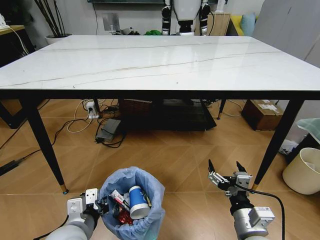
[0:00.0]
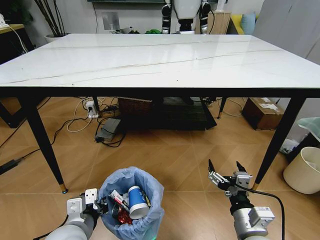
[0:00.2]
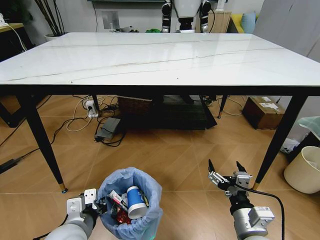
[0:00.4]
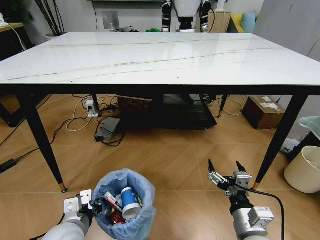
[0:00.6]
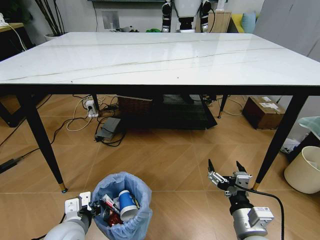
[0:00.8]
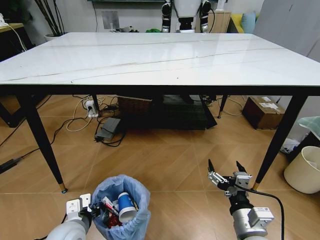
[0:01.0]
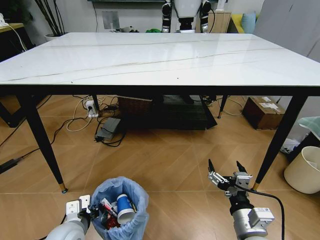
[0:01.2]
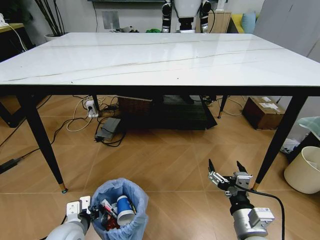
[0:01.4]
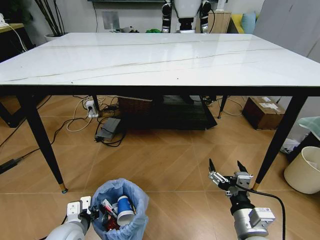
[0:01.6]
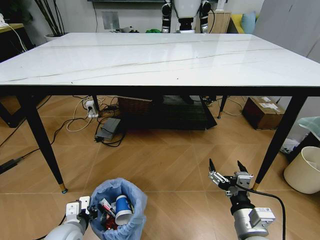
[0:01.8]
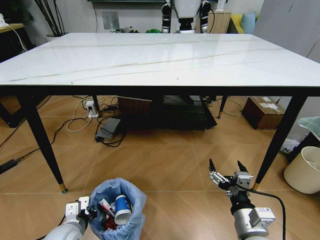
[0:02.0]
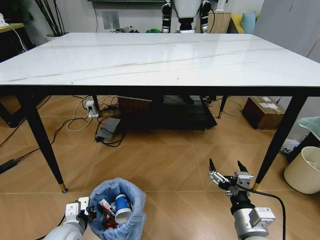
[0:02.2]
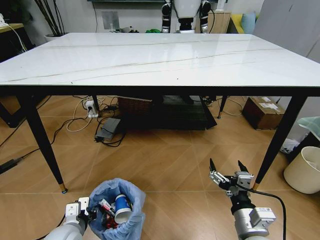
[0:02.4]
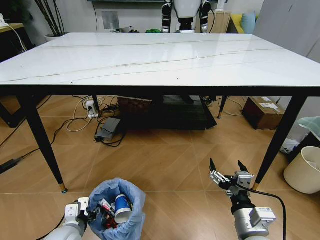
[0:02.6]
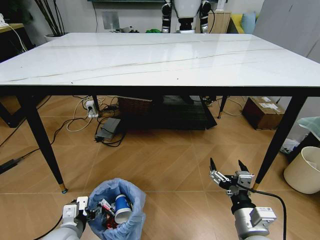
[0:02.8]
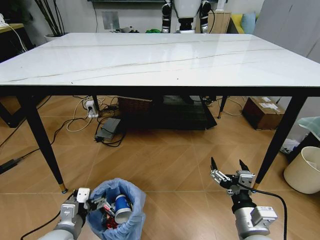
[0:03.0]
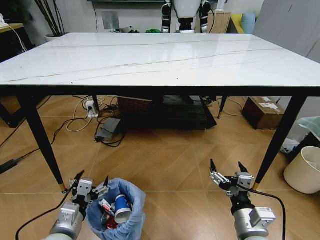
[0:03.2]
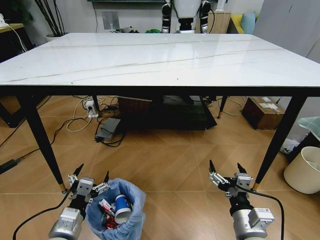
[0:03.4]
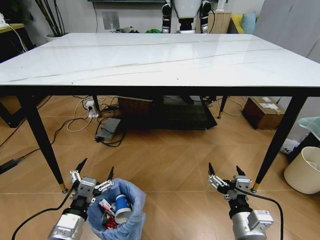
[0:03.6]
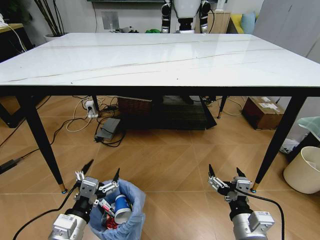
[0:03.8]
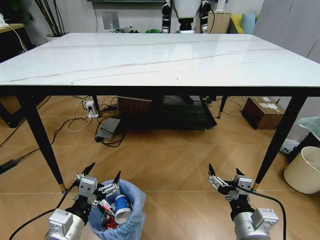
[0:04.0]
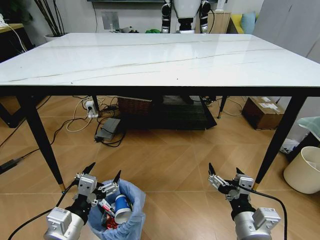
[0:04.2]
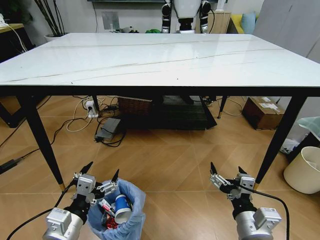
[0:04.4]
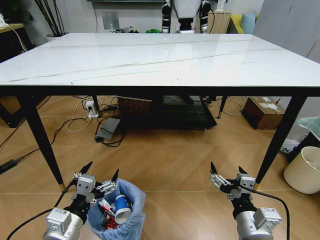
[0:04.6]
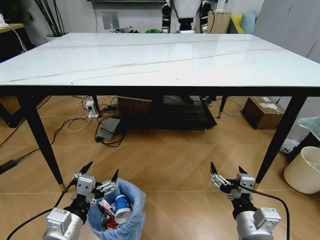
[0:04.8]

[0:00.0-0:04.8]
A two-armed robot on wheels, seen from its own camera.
Task of the whole recording: Pick up the trash bin and place the trash from the table into it.
0:00.0 to 0:01.6: The left gripper goes approximately 10 cm downward and to the left.
0:01.6 to 0:03.2: The left gripper travels upward by about 5 cm, and opens its fingers.
0:03.2 to 0:04.8: The left gripper shifts approximately 5 cm upward.

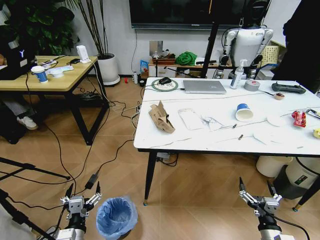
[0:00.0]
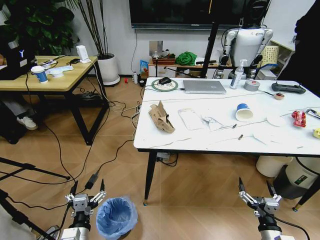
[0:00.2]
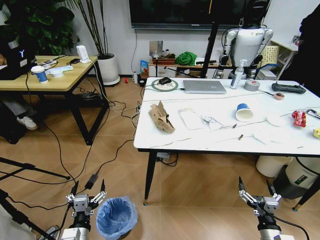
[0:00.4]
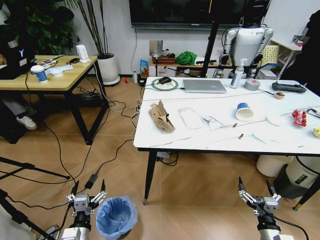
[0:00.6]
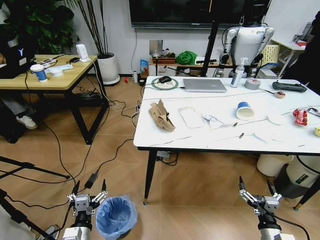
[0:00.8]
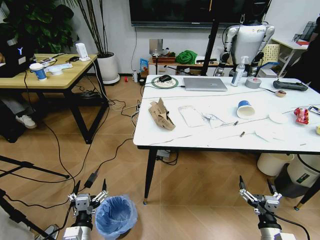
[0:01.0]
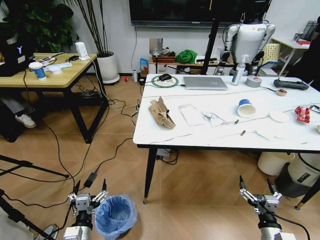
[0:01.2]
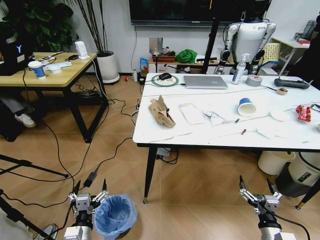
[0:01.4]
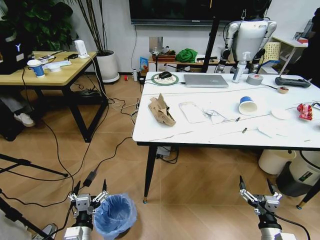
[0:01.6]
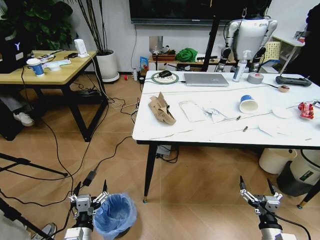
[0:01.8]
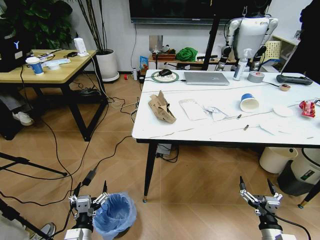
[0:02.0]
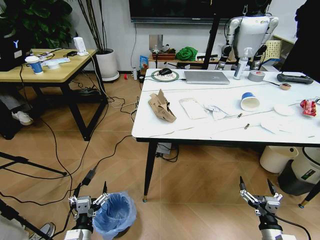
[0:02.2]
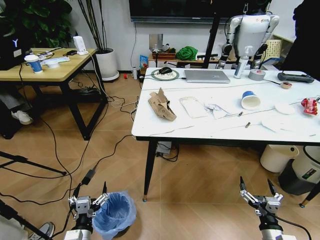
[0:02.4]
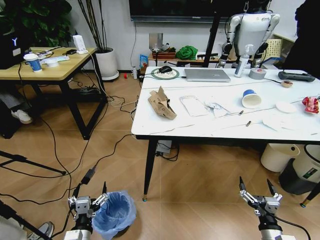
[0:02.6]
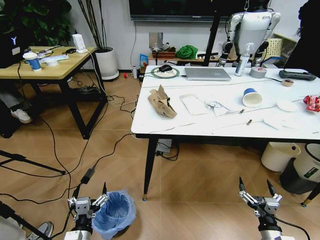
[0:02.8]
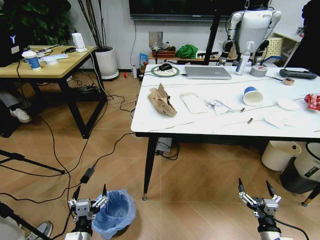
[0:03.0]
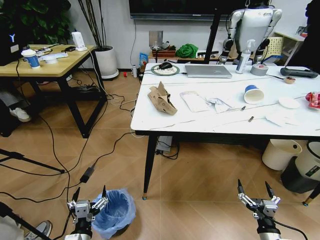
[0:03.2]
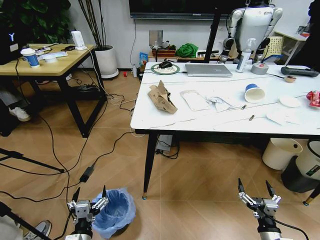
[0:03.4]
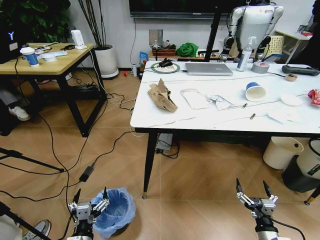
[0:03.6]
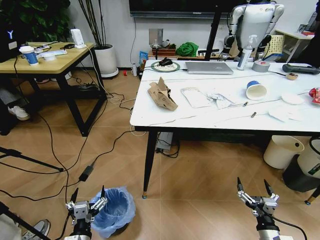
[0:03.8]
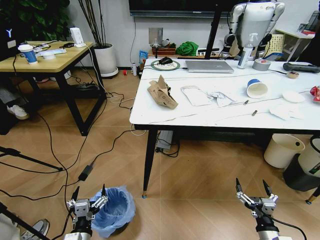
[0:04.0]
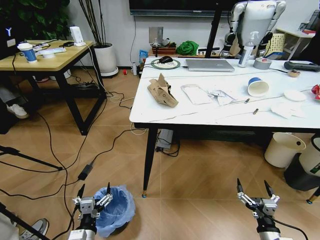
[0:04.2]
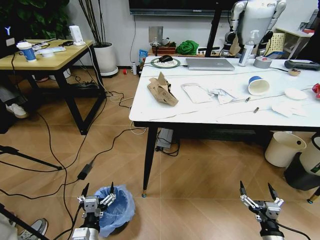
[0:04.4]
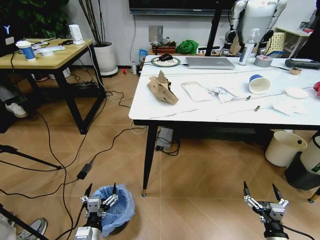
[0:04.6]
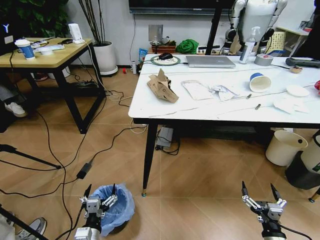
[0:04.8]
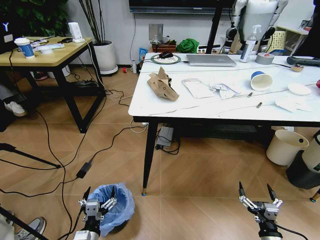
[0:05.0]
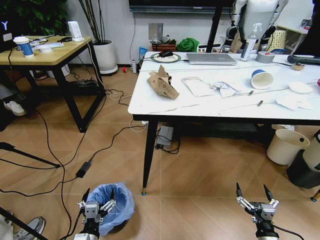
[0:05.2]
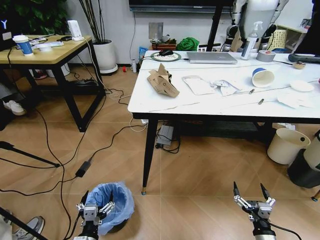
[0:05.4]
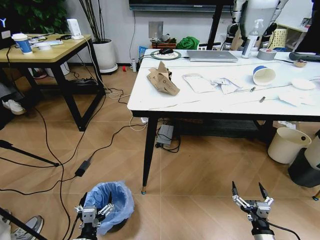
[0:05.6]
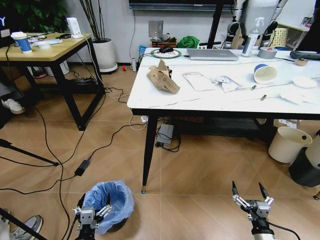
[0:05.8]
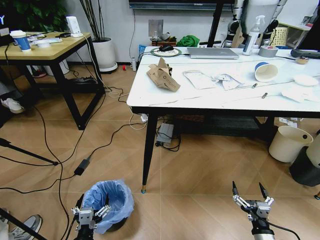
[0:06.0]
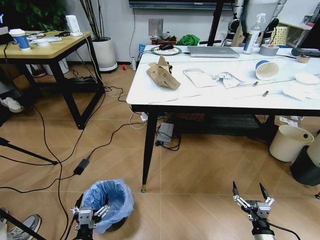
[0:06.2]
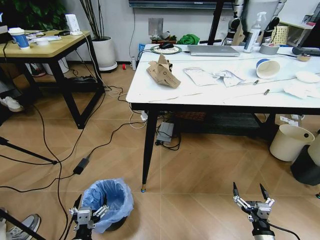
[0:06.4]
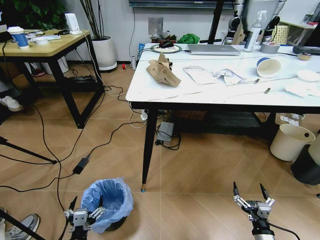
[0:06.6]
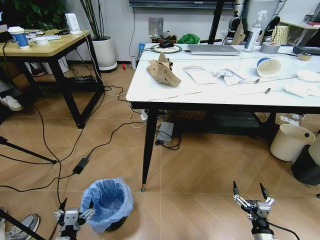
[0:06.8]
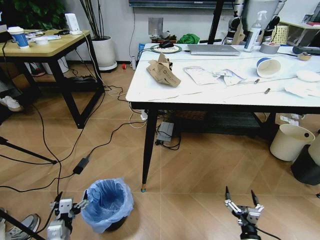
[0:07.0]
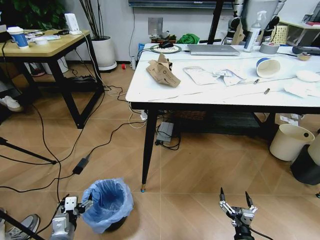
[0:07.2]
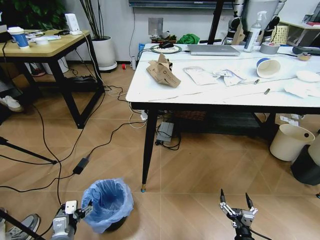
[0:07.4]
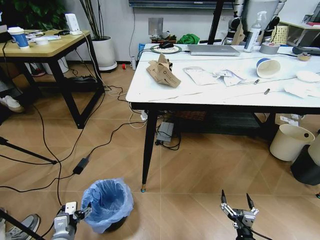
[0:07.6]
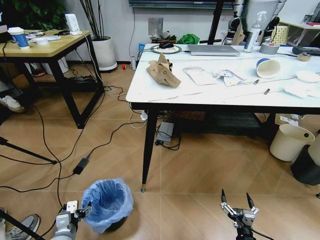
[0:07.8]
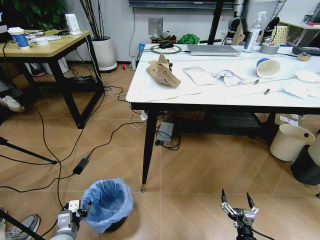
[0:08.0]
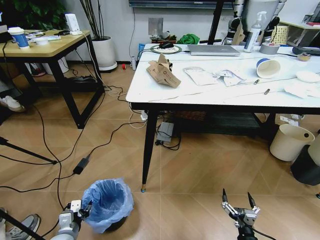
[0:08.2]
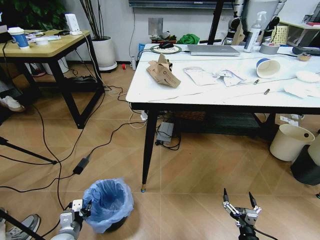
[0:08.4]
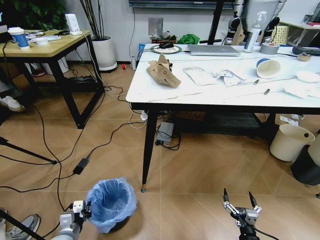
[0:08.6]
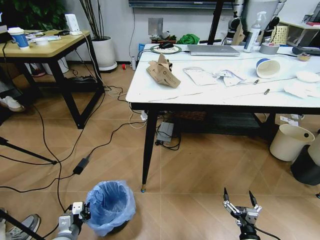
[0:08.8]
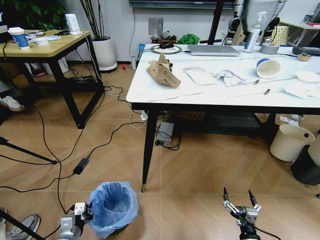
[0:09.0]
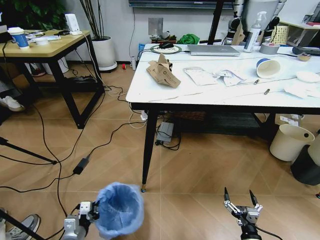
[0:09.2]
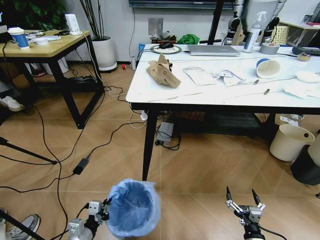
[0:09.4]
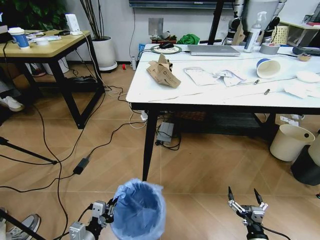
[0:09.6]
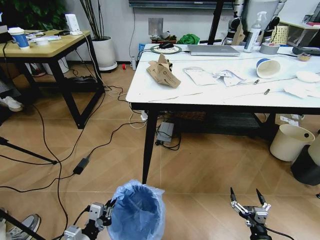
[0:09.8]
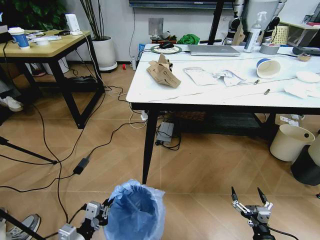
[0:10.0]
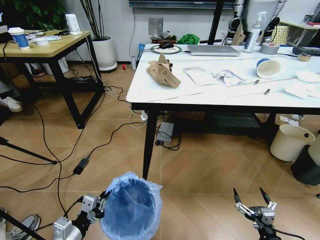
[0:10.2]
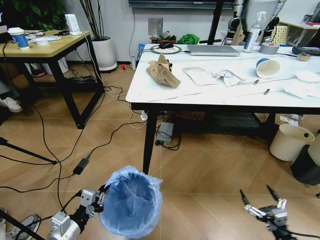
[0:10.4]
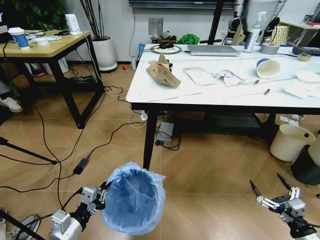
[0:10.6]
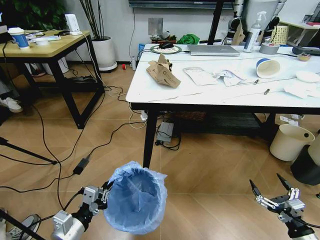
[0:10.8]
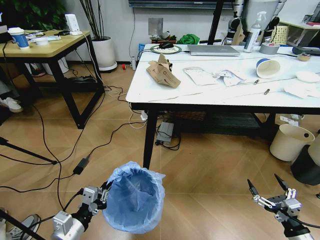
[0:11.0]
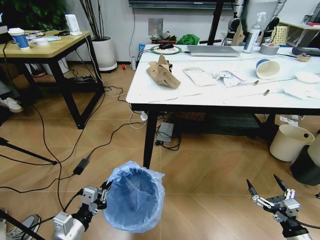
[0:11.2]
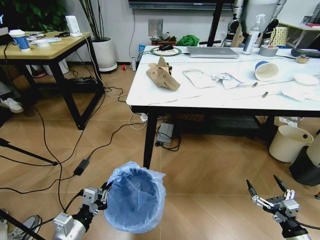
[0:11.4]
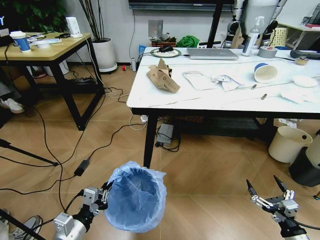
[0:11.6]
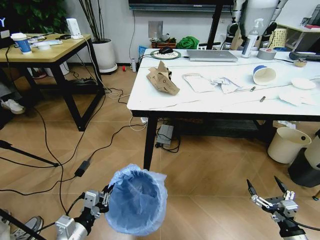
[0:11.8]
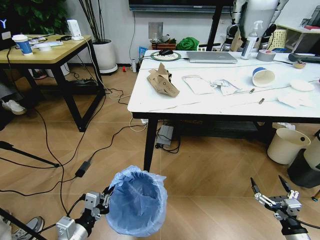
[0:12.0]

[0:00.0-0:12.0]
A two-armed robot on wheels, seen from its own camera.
Task of the whole recording: Pick up the trash bin and place the trash from the table into it.
0:06.0 to 0:07.6: The left gripper heads to the left and forward, covering about 10 cm; the right gripper moves to the left, approximately 5 cm.
0:07.6 to 0:09.0: The left gripper closes its fingers.
0:09.0 to 0:10.4: The right gripper moves to the right and upward, some 10 cm, while the left gripper is displaced upward by approximately 15 cm.

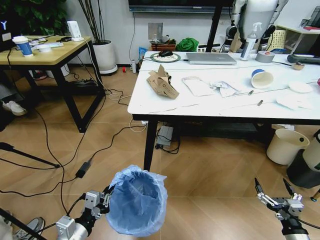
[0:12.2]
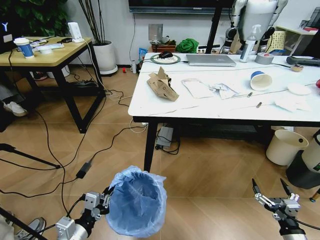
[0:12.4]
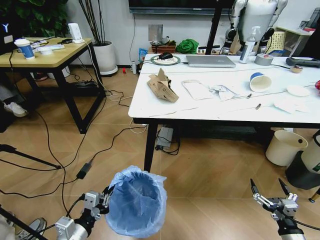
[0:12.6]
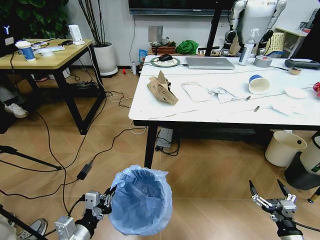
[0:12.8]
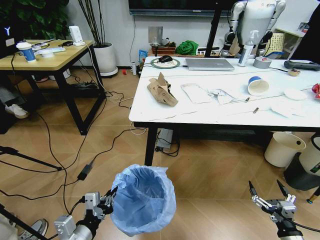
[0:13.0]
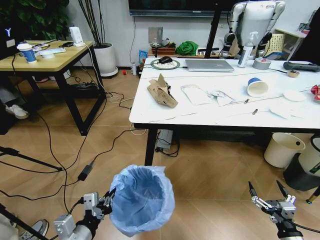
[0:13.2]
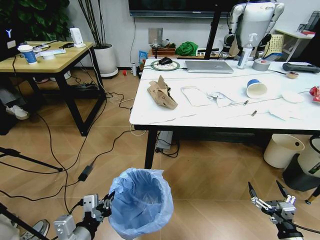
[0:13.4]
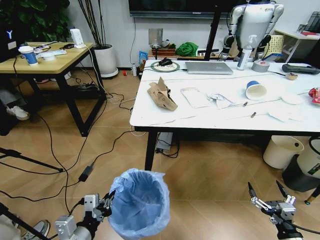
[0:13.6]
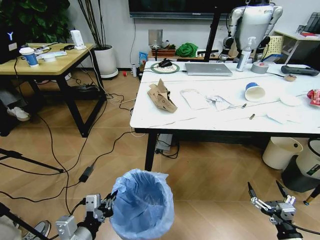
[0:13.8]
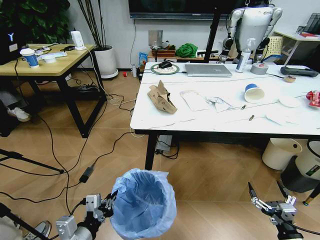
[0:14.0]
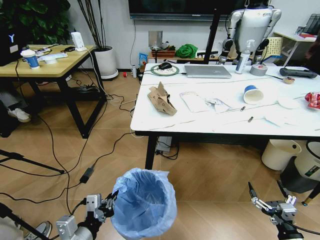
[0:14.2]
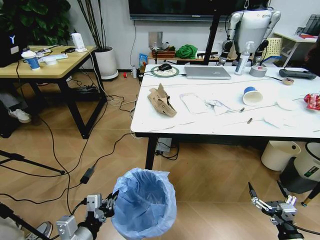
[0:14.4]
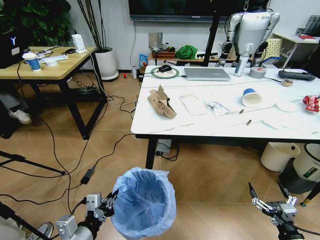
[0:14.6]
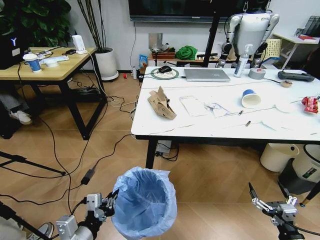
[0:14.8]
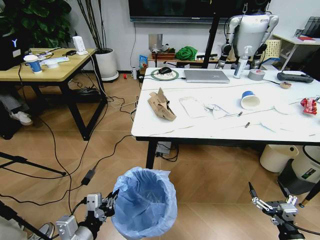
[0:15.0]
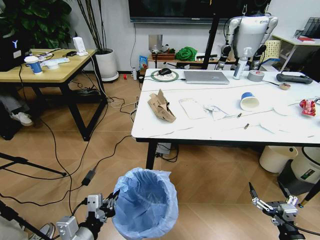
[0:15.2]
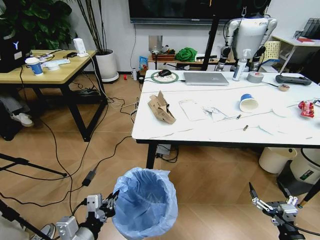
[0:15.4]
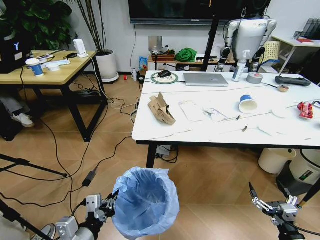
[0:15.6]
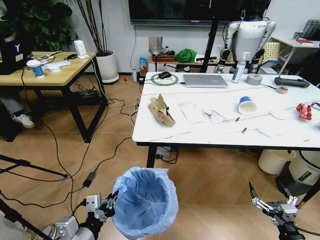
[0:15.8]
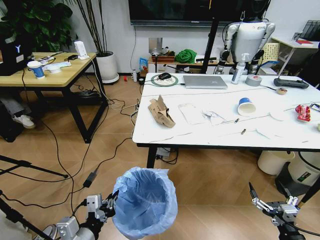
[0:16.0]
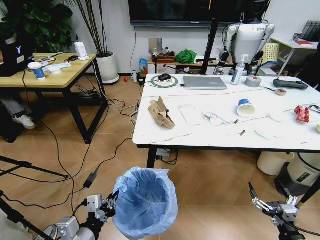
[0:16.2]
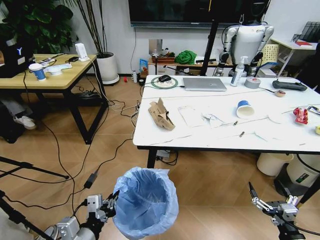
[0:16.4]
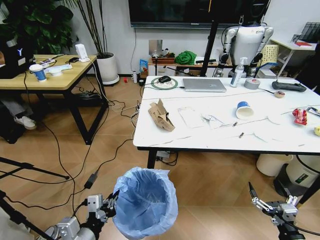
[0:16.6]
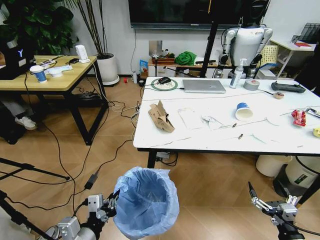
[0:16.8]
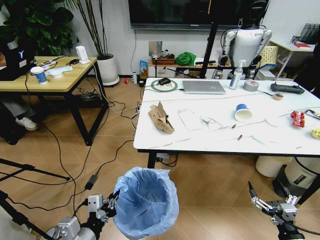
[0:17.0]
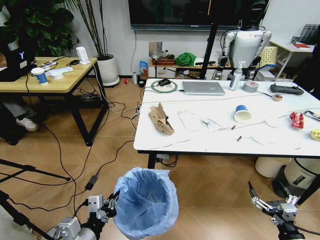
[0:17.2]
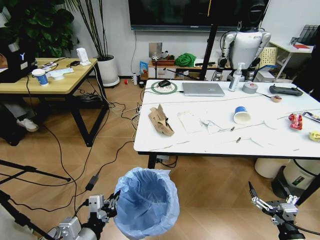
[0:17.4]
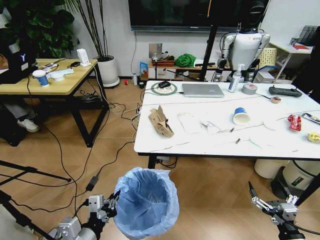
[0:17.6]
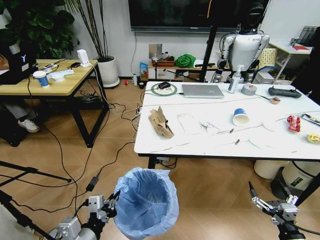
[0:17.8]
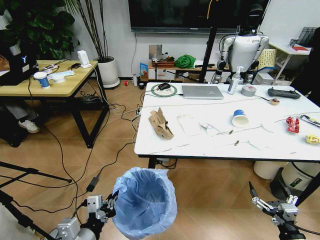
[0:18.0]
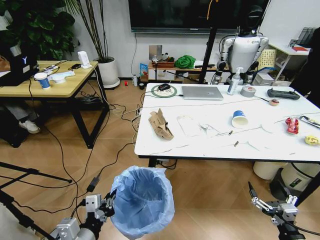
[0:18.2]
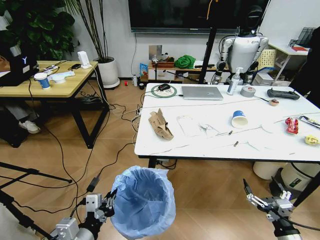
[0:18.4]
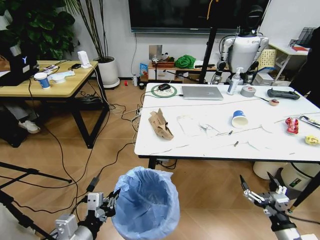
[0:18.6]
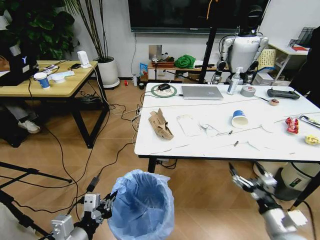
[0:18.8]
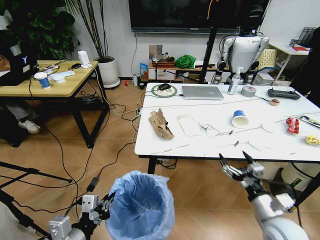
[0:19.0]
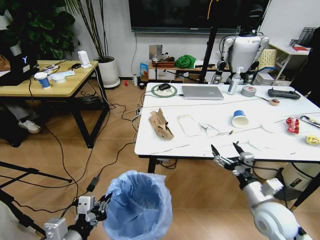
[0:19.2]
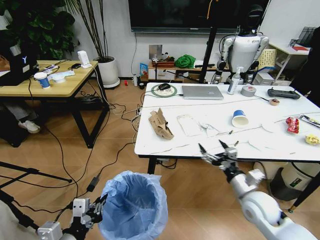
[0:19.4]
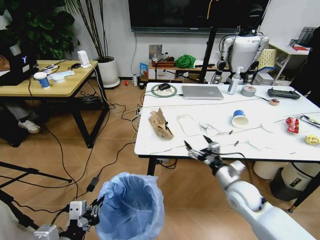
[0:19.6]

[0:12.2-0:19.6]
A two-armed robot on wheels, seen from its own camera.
Task of the whole recording: Pick up the trash bin and place the trash from the table into it.
0:18.2 to 0:19.6: The right gripper goes about 25 cm forward and to the left.
